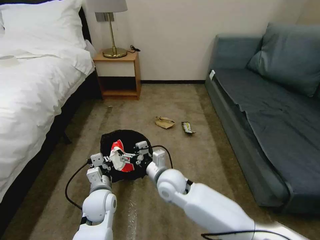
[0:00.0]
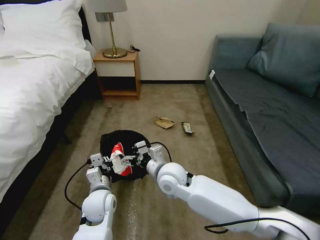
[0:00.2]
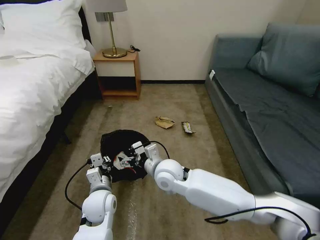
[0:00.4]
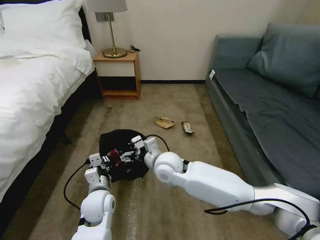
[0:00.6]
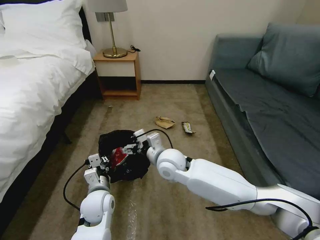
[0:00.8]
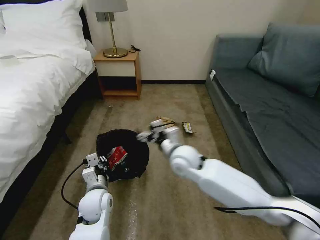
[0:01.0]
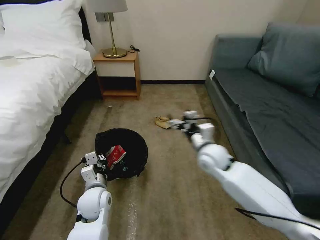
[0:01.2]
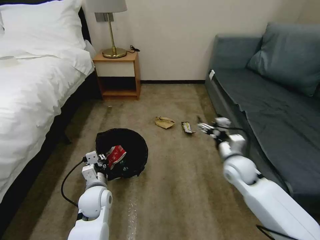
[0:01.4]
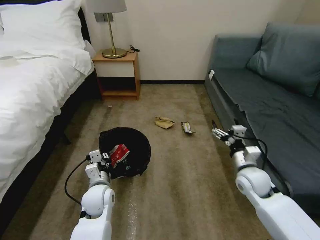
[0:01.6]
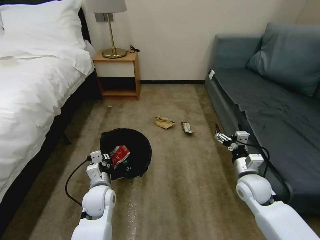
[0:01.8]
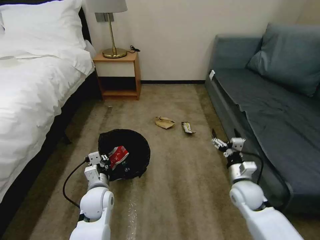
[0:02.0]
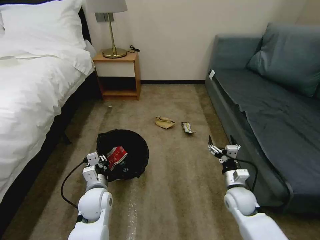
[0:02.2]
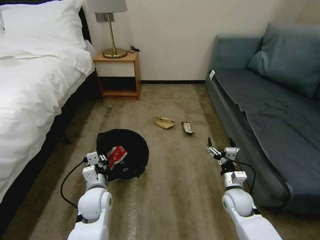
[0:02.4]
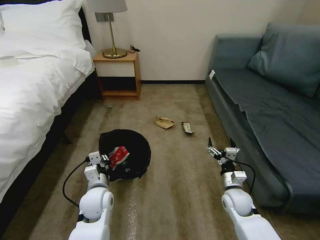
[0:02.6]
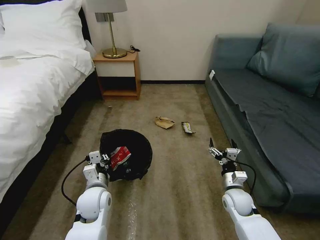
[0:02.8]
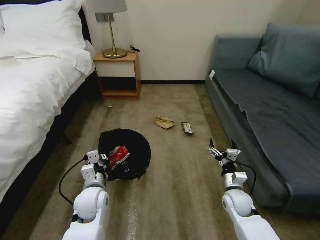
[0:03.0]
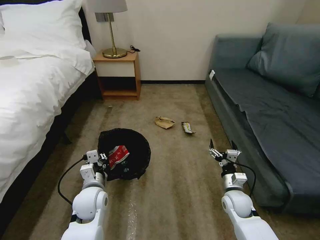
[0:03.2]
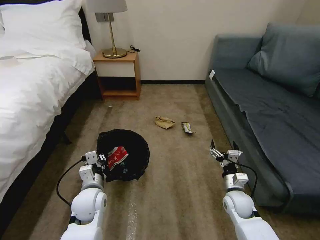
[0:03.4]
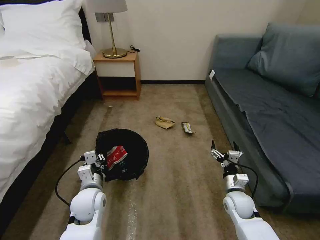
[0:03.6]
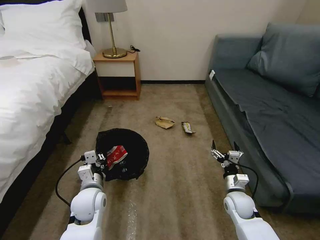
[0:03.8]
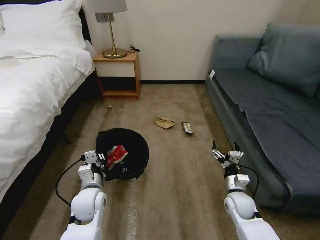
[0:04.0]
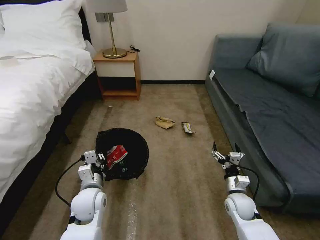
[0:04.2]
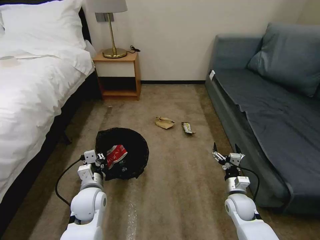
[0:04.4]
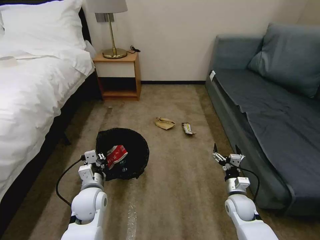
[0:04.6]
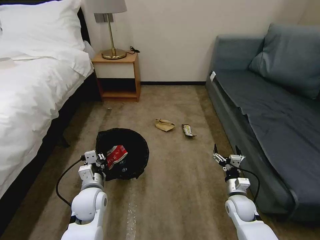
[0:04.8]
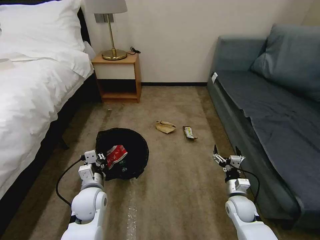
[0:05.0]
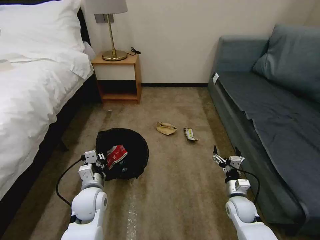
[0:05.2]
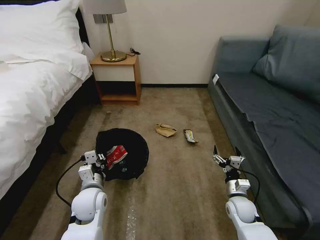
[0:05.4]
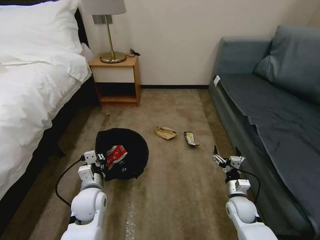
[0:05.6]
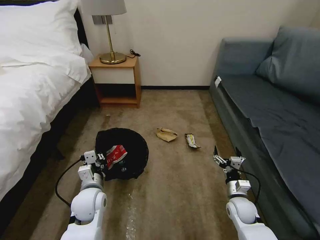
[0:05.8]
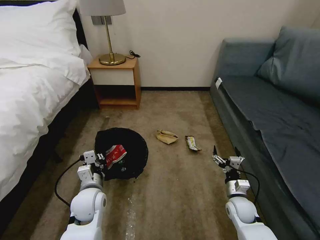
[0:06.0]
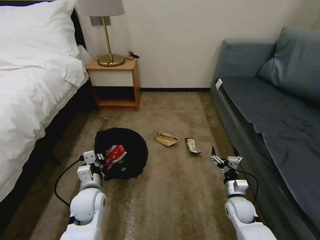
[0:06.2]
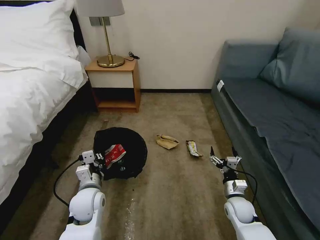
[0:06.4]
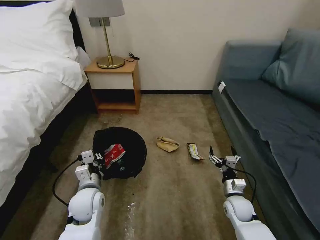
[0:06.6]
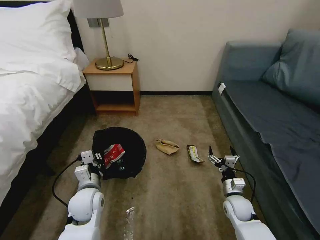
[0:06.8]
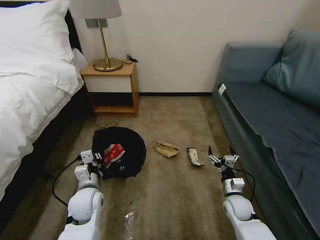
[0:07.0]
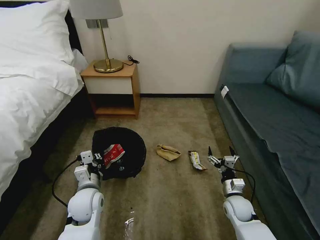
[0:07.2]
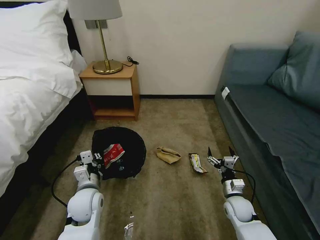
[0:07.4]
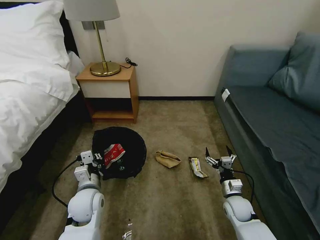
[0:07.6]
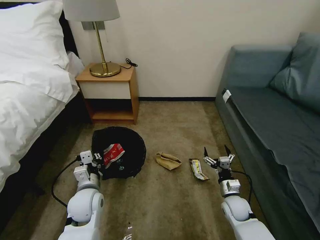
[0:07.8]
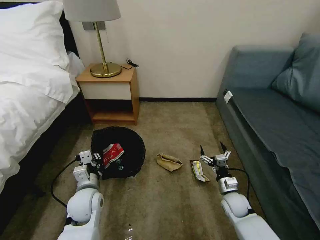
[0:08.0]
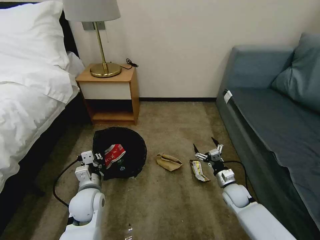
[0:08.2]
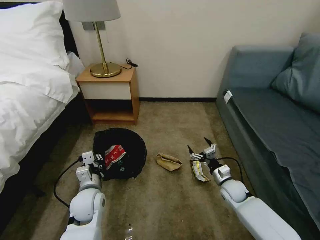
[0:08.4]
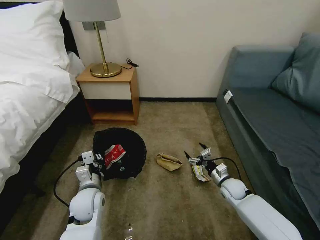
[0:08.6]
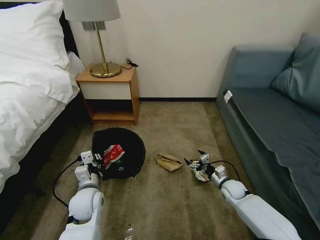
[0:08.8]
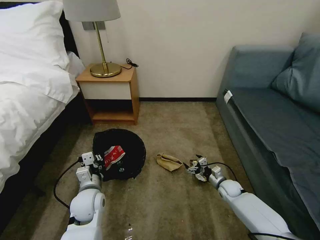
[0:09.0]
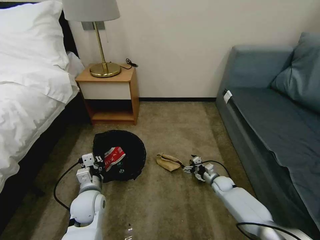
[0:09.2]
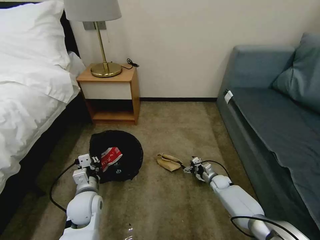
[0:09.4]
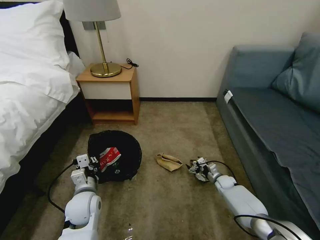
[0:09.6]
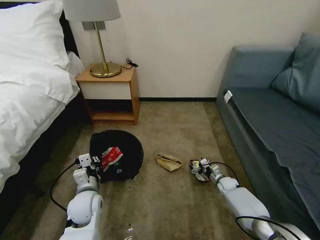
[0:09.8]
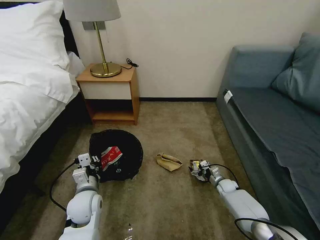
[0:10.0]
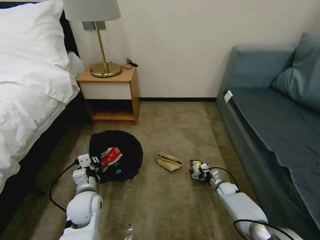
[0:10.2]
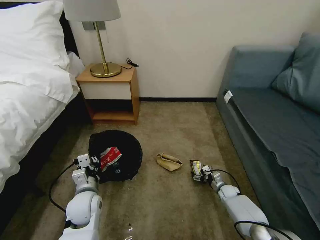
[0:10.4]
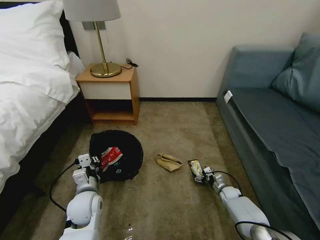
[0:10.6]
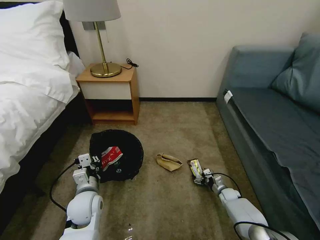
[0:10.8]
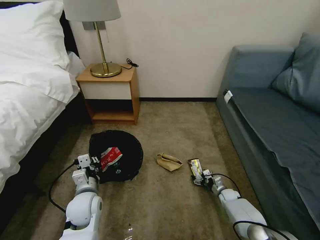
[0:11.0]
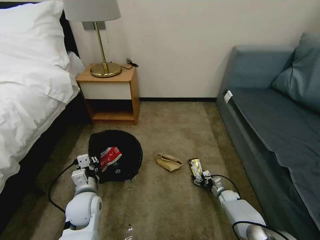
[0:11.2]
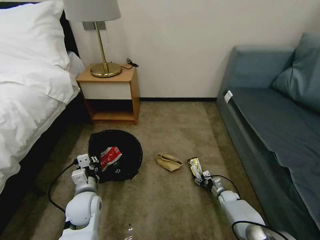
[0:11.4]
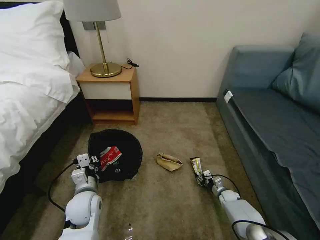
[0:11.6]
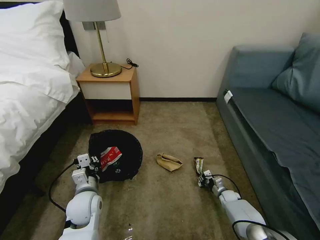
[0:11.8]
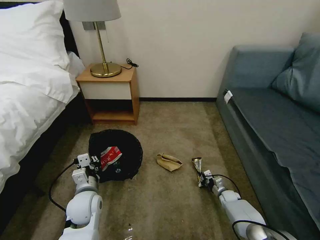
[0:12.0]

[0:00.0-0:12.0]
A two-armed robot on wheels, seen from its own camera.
Task of the whole recording: Pick up the trash bin, then pick up the garbage on the floor and place it into the trash bin.
0:00.0 to 0:01.6: The right gripper travels to the right by roughly 25 cm.
0:01.6 to 0:03.0: The right gripper goes approximately 10 cm downward.
0:03.0 to 0:06.0: The grippers stay close to where they were, moving slightly.
0:07.6 to 0:09.0: The right gripper travels forward and downward by approximately 10 cm.
0:09.0 to 0:10.4: The right gripper shifts approximately 5 cm downward.
0:10.4 to 0:12.0: The right gripper closes.

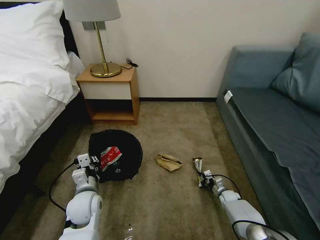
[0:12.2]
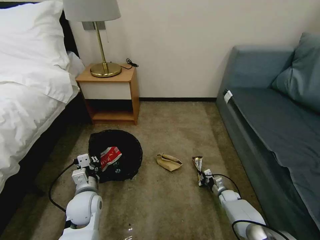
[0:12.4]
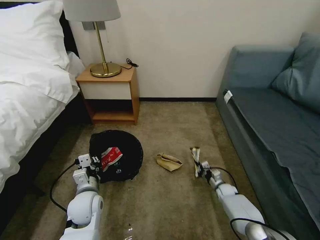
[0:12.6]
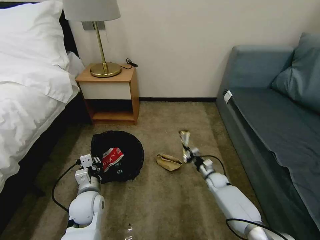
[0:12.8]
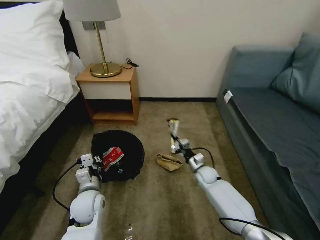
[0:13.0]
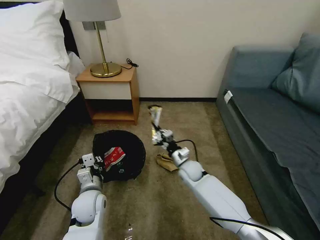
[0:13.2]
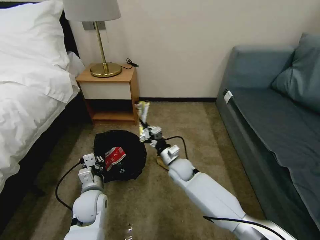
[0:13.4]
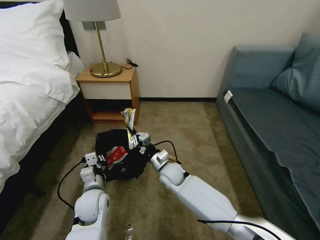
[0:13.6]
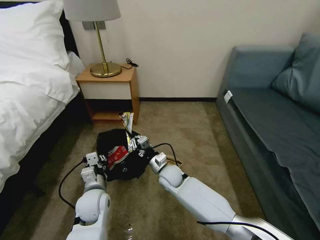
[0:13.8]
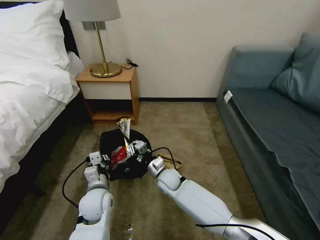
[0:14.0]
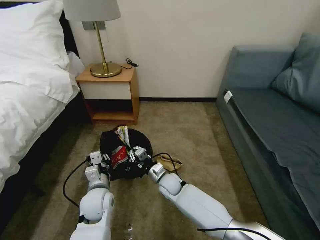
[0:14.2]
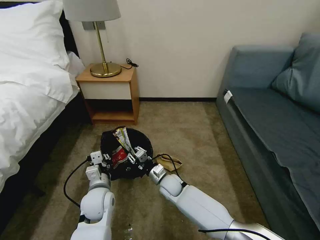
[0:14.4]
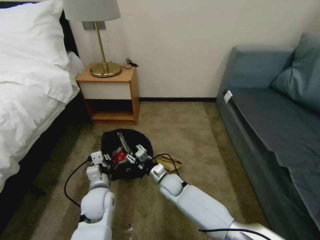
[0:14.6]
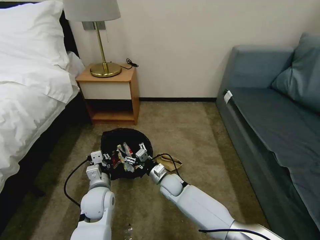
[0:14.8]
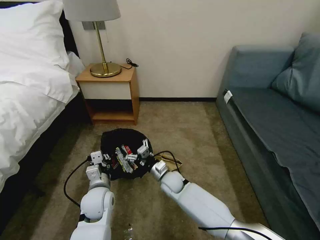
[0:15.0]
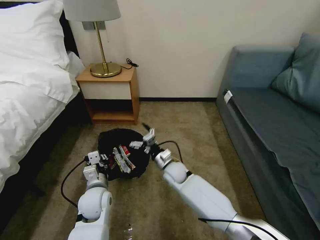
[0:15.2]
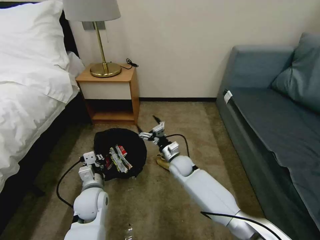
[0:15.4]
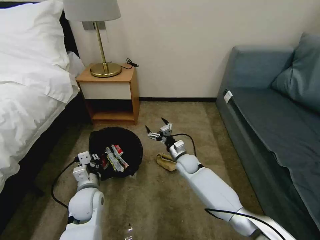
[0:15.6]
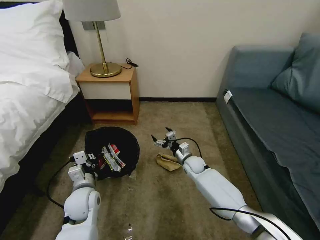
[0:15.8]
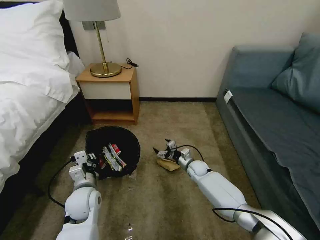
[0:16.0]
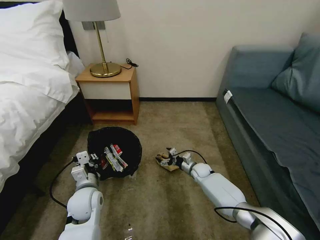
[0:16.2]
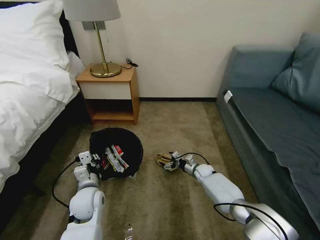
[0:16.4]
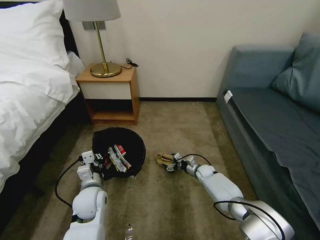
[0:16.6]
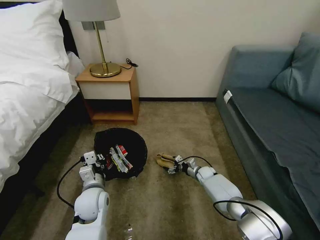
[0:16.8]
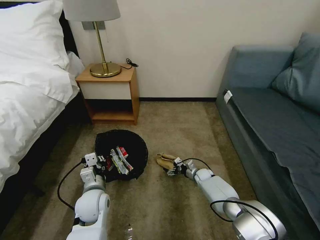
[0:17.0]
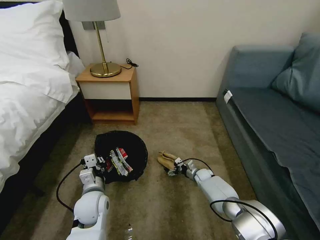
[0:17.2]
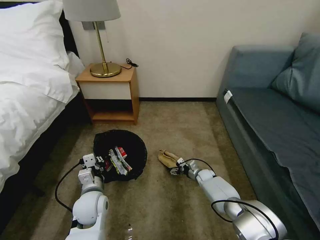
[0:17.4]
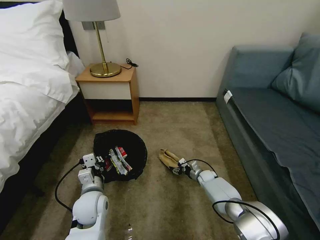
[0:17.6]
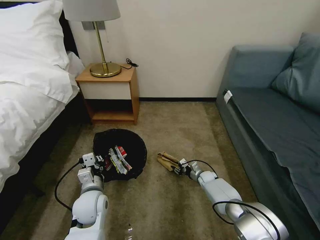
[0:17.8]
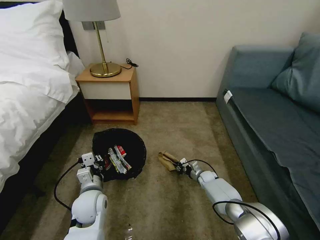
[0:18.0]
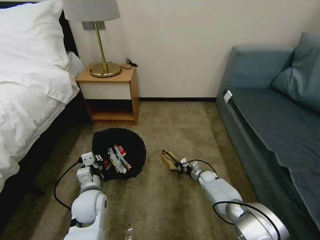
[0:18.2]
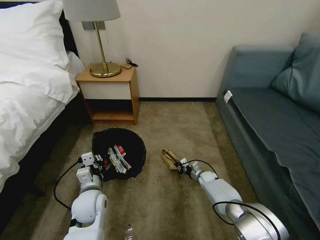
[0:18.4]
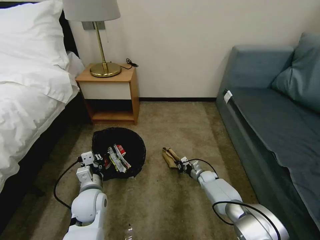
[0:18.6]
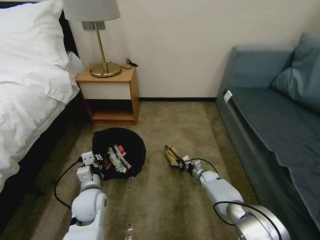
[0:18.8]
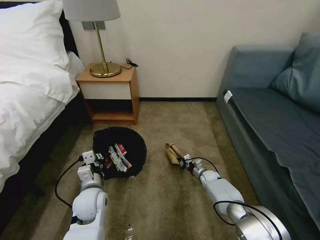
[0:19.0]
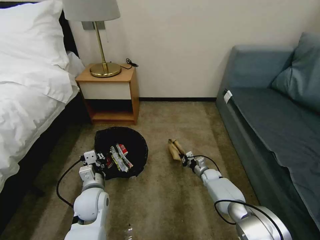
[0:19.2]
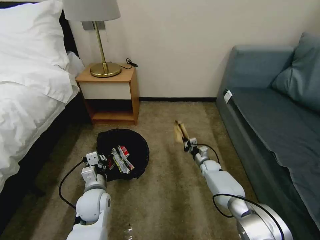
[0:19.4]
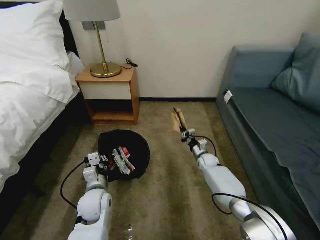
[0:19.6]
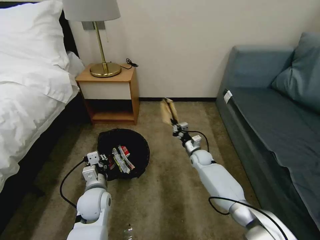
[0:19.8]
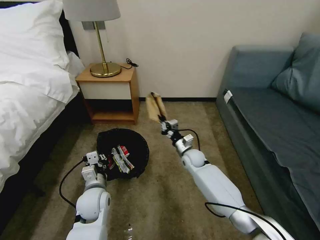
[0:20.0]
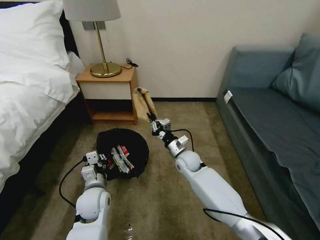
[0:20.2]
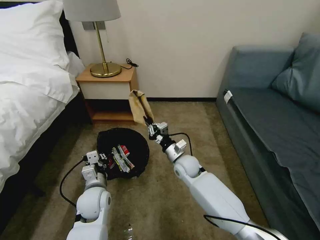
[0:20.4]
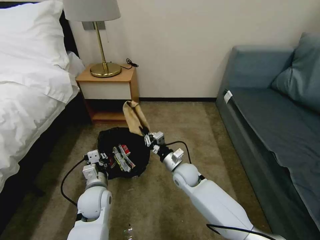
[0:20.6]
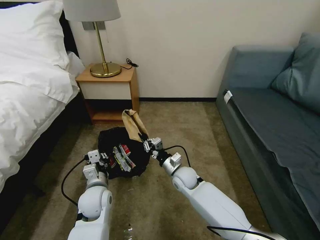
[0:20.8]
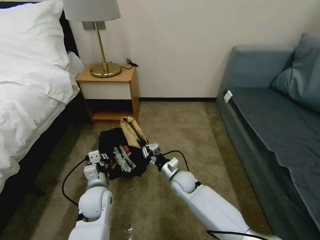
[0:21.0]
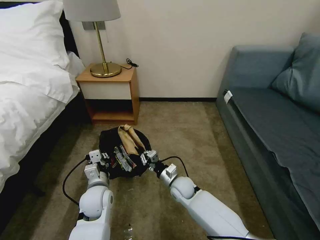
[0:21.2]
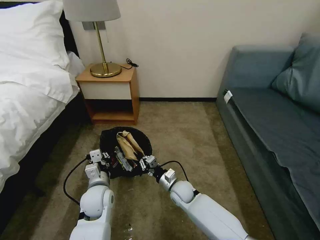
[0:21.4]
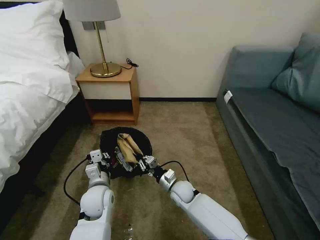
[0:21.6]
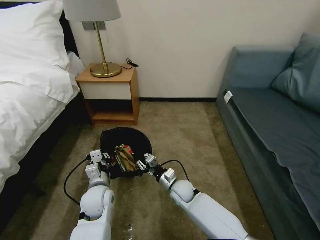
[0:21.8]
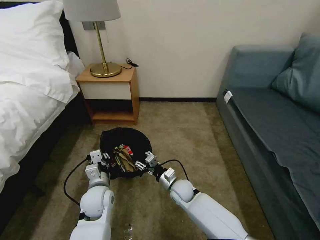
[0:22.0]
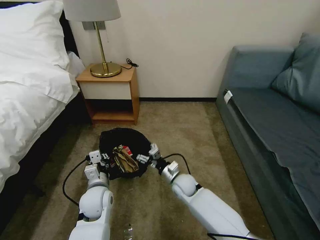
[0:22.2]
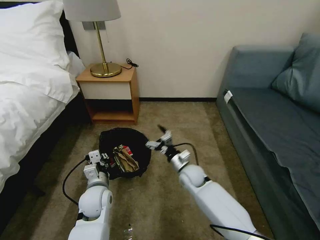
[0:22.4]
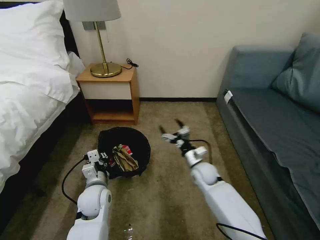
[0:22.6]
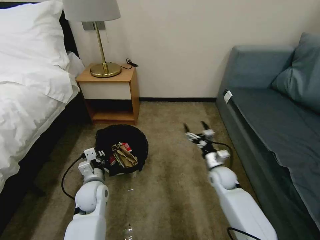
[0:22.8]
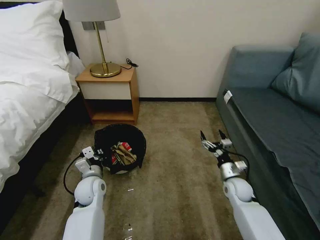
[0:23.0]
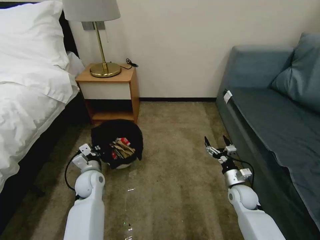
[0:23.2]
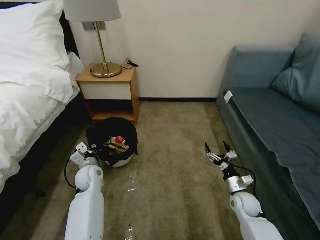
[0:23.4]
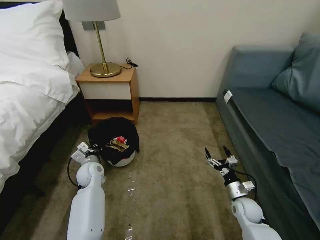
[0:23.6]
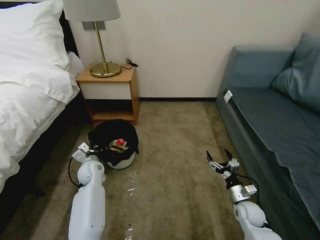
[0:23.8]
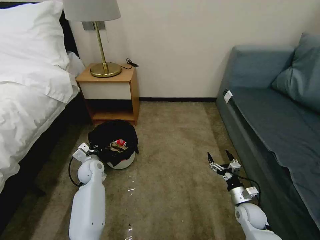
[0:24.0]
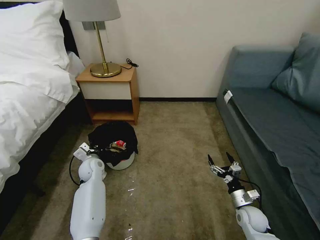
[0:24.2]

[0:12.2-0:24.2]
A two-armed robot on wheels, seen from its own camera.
Task of the whole recording: Pick up the trash bin, then pick up the garbage on the floor and place it into the trash bin.
0:12.2 to 0:13.8: The right gripper goes some 40 cm to the left and upward.
0:13.8 to 0:15.2: The right gripper opens its fingers.
0:15.2 to 0:16.6: The right gripper moves to the right, downward and forward, roughly 25 cm.
0:16.6 to 0:18.2: The right gripper closes up.
0:18.2 to 0:19.8: The right gripper heads upward and to the left, covering some 15 cm.
0:19.8 to 0:21.2: The right gripper is displaced backward and to the left by roughly 20 cm.
0:21.2 to 0:22.6: The right gripper is displaced to the right and upward by about 10 cm, and opens.
0:22.6 to 0:24.2: The left gripper travels forward and to the left by about 15 cm, while the right gripper shifts some 25 cm to the right, backward and downward.
